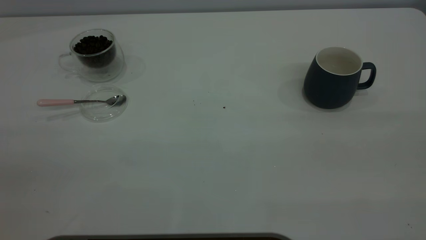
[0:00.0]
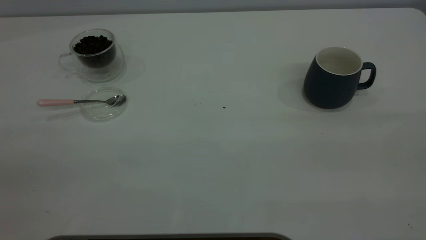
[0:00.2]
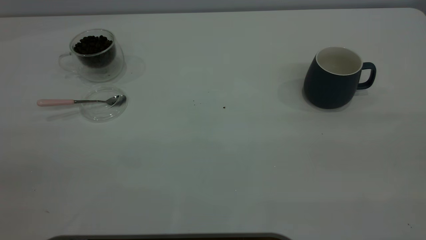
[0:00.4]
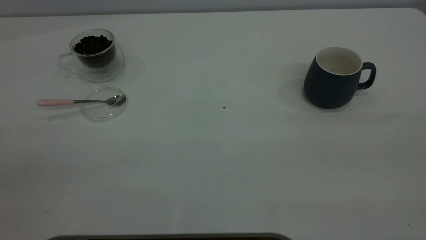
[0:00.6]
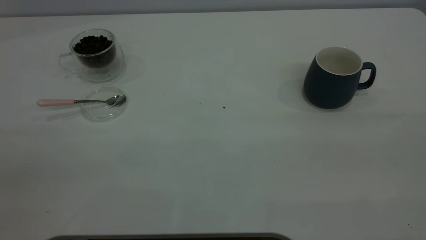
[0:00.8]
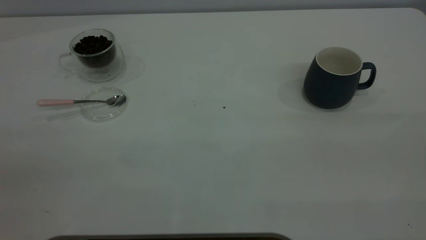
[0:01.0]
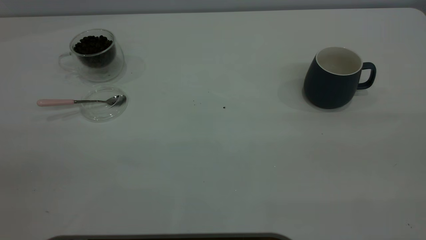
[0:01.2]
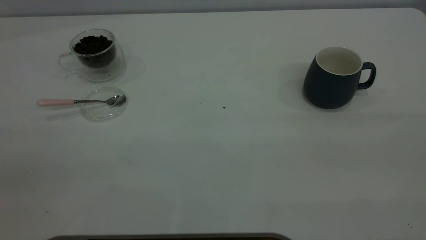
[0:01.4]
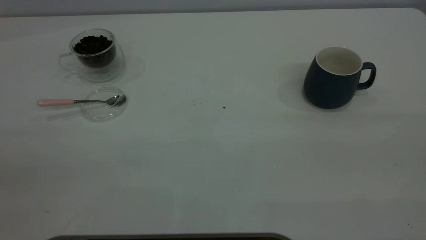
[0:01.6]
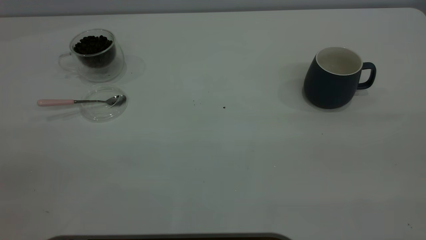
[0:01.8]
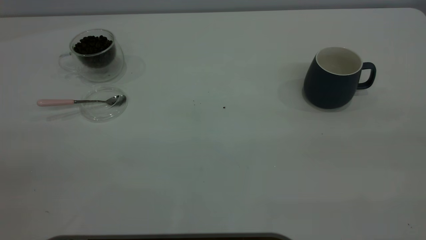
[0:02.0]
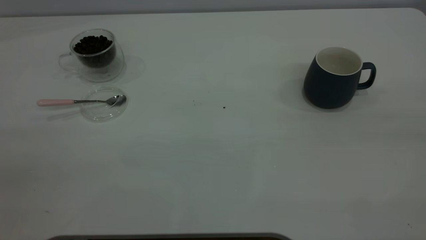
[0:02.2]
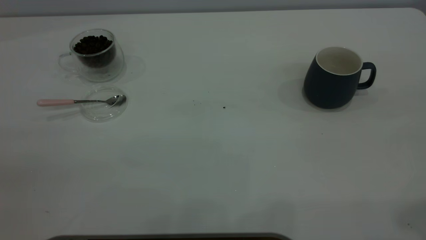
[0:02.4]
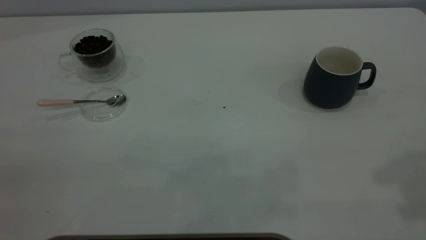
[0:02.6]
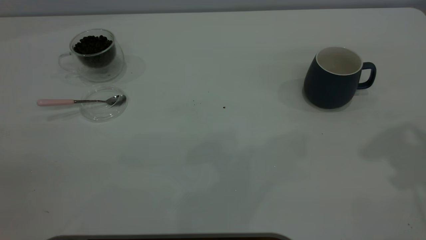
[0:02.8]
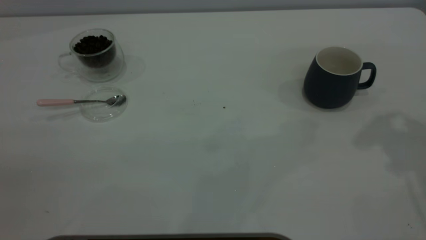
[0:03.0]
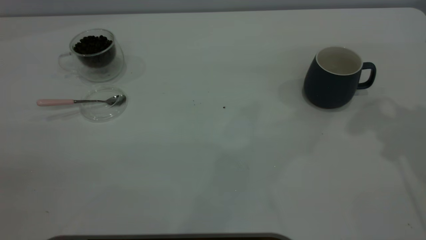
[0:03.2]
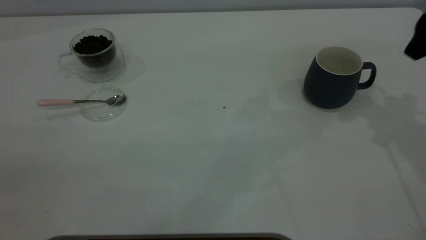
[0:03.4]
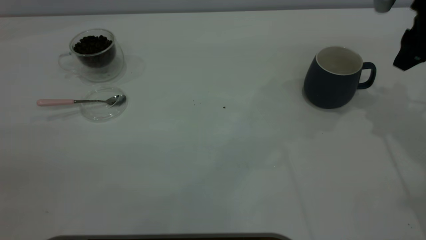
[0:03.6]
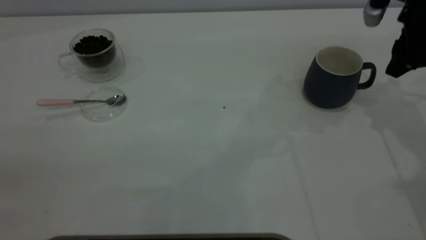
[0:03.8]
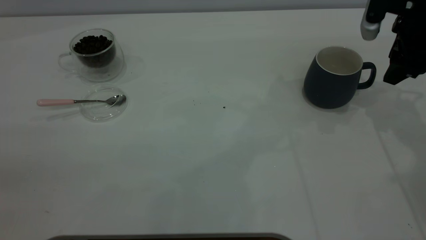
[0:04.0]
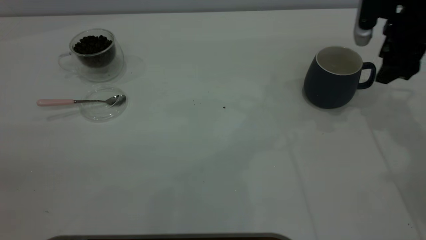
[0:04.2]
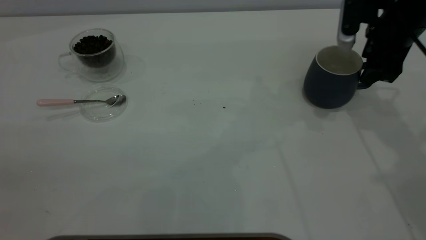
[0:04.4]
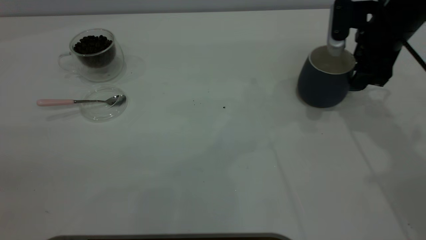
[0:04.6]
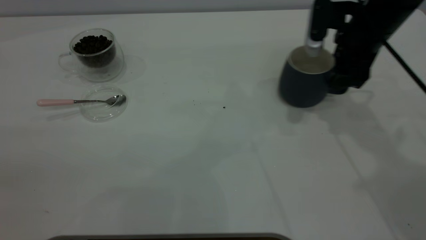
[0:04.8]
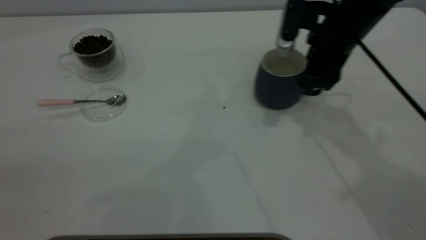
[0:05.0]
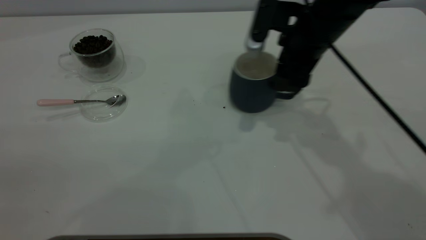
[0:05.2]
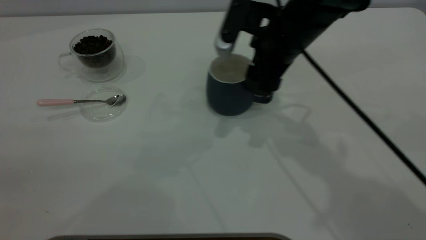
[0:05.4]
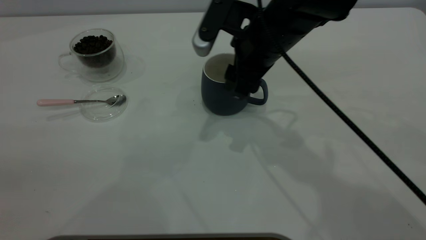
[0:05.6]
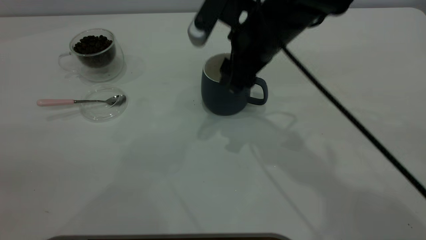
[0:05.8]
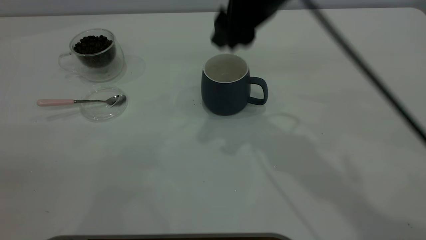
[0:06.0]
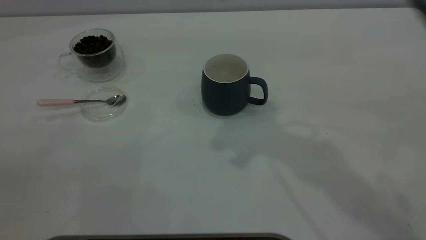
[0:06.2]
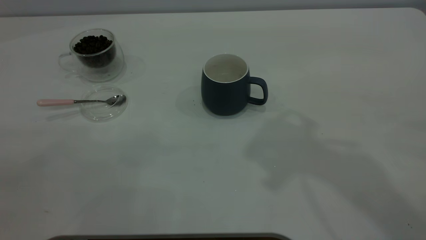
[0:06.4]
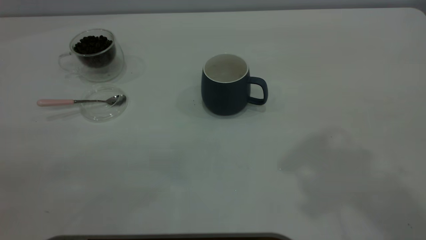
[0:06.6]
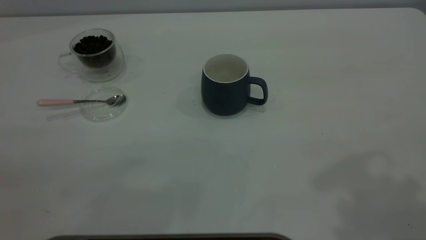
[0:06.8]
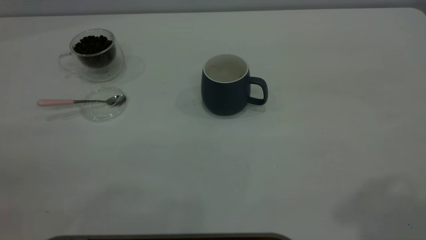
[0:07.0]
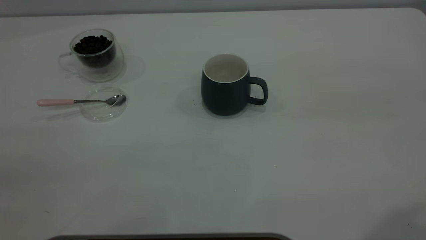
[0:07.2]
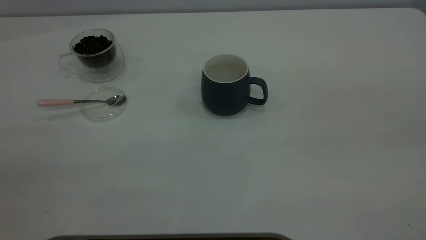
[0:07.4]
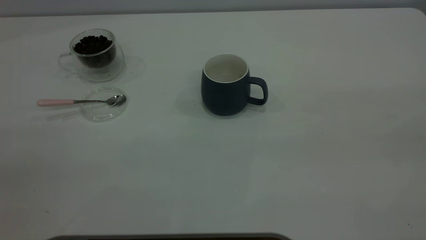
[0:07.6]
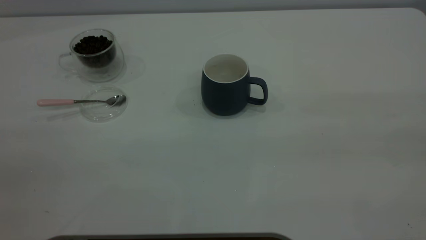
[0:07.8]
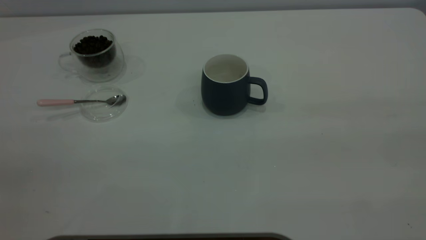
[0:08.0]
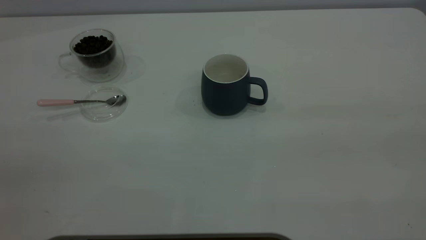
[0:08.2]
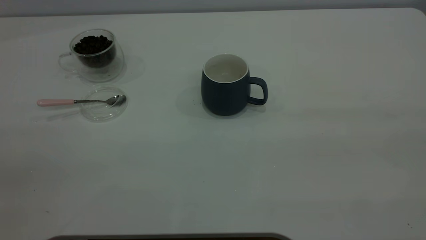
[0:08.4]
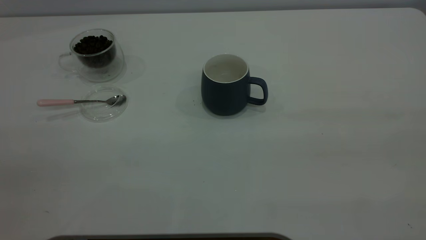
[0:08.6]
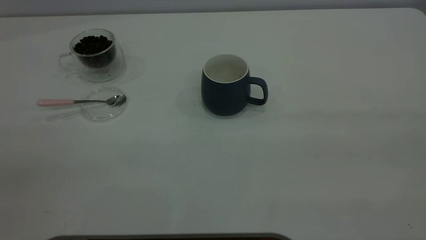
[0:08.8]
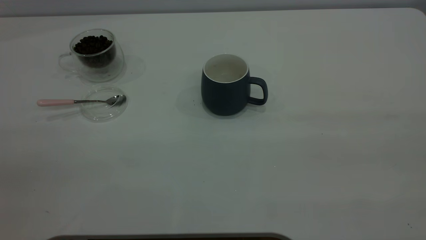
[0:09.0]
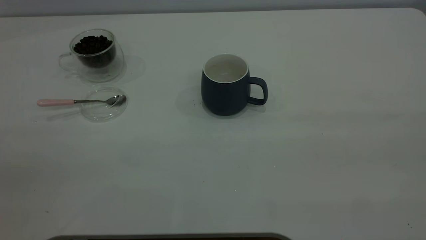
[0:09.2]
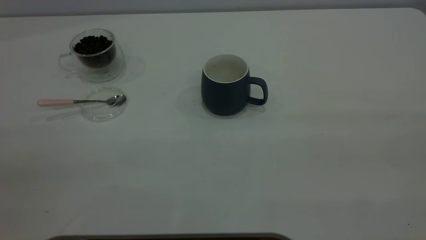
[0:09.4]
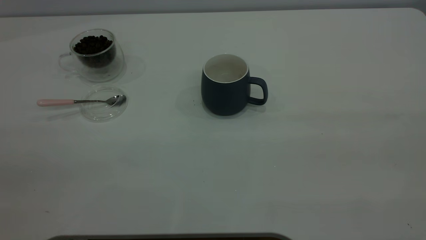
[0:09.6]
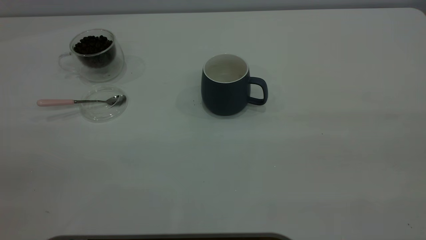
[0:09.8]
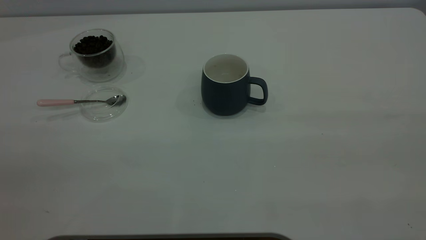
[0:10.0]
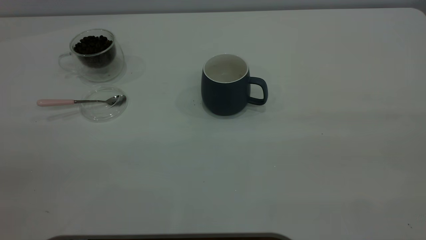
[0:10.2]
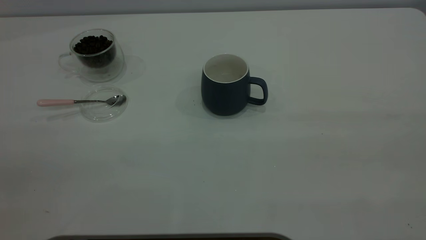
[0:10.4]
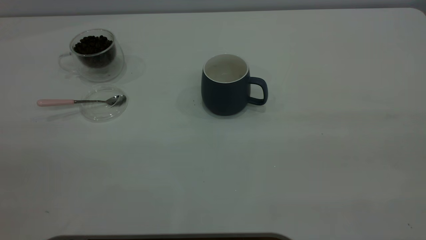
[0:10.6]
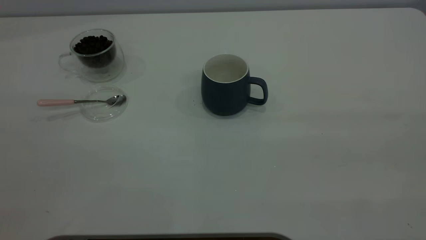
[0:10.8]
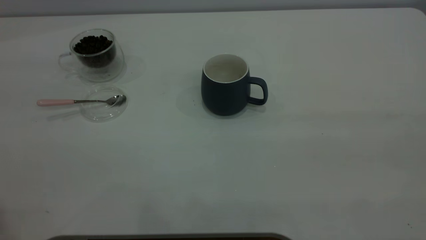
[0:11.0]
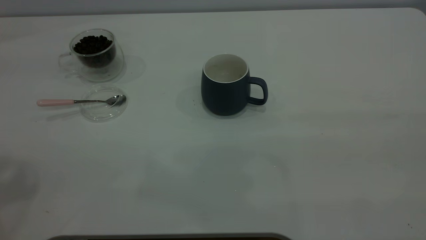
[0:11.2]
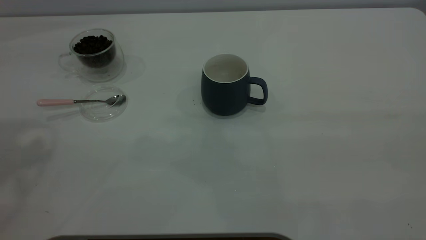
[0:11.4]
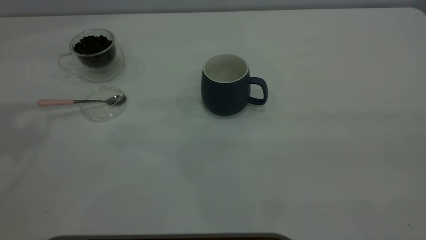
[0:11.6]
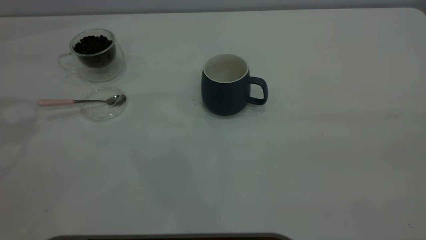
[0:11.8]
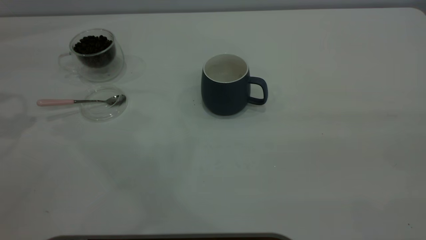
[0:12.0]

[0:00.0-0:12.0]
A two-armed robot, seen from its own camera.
Task of the whole recording: the right gripper place the grey cup in the center of the table, the left gripper take the pink spoon from the cup lid and scoop out the coffee beans from the coffee cup and put them into the grey cup, the left gripper put the spoon back into the cup lid.
Step, 0:00.0 to 0:06.0: Move the cup to the center of view.
0:00.0 to 0:01.6: Neither gripper changes place.
0:03.0 to 0:04.4: The right gripper goes some 20 cm downward and forward.
0:04.4 to 0:06.0: The right gripper shifts roughly 20 cm to the left and upward.
0:06.0 to 0:07.6: The right gripper heads backward, to the right and upward, covering approximately 40 cm.
0:09.0 to 0:10.4: Both grippers stay put.

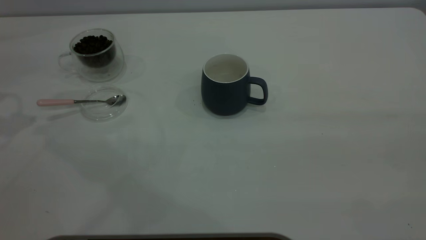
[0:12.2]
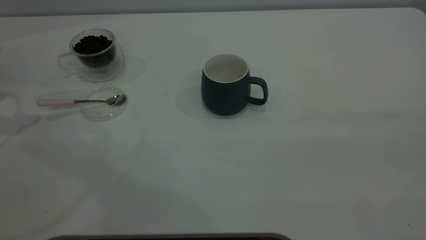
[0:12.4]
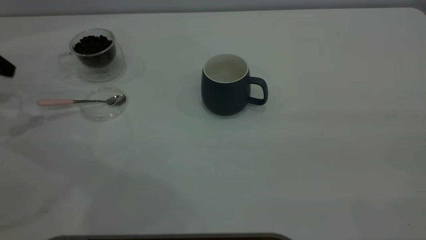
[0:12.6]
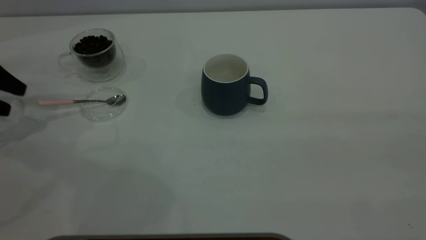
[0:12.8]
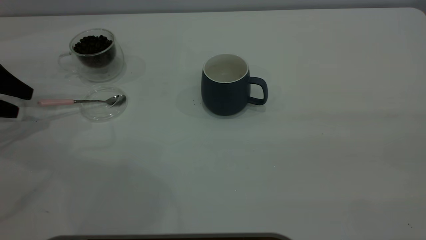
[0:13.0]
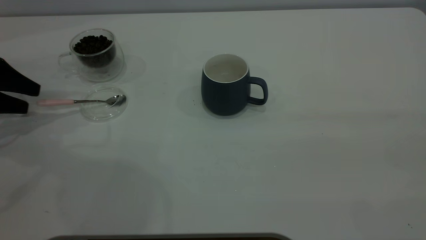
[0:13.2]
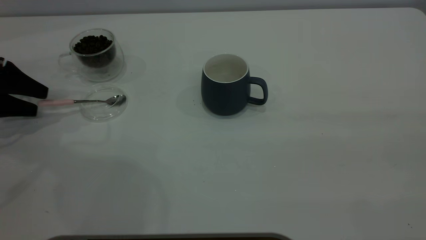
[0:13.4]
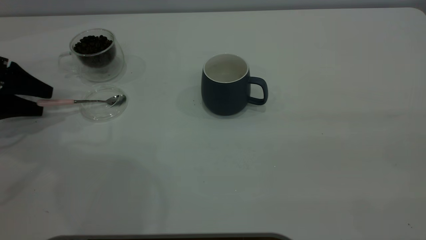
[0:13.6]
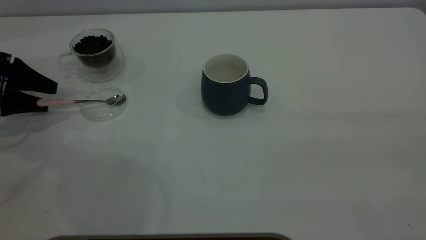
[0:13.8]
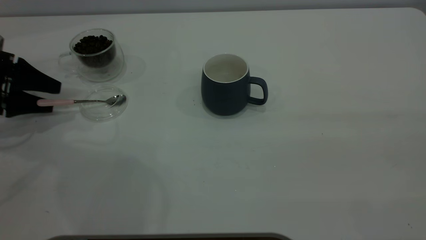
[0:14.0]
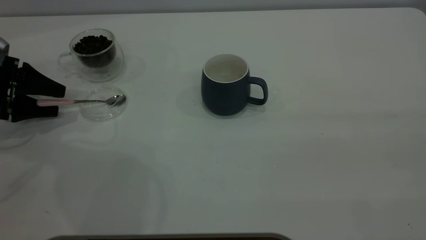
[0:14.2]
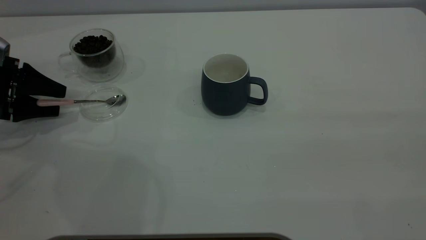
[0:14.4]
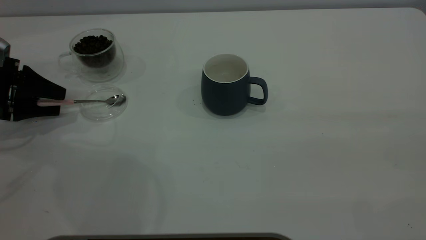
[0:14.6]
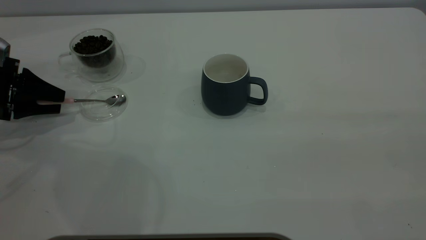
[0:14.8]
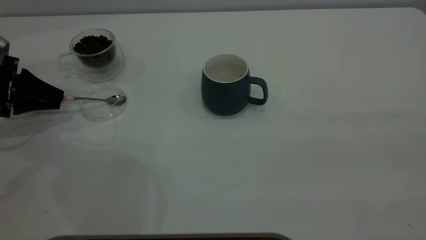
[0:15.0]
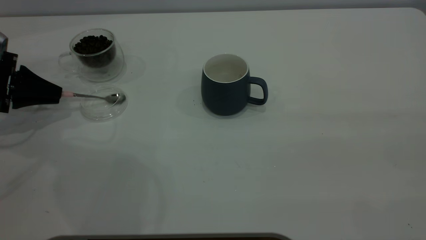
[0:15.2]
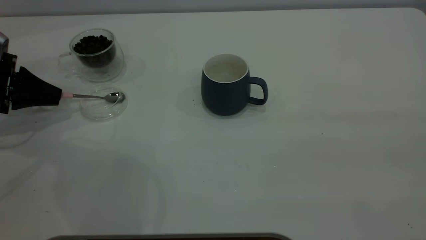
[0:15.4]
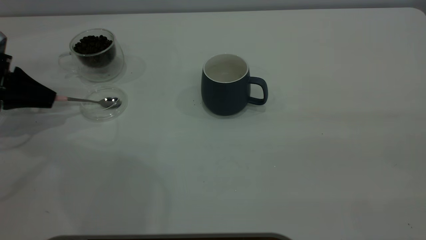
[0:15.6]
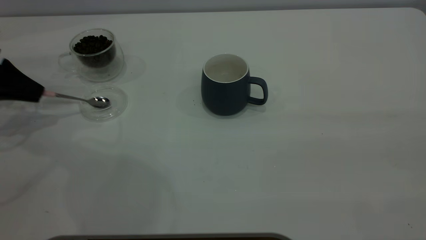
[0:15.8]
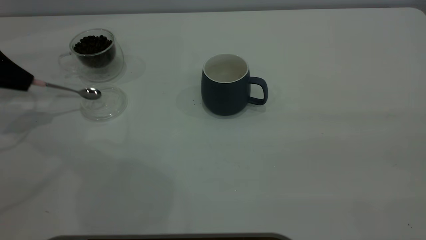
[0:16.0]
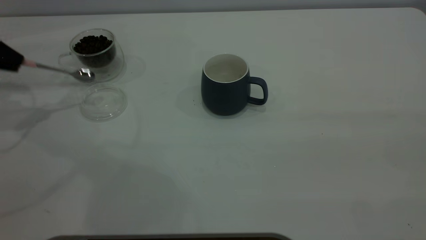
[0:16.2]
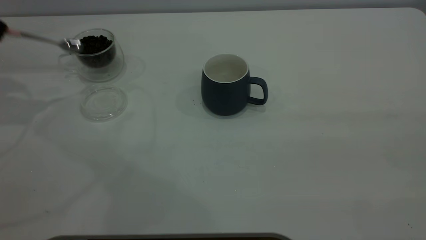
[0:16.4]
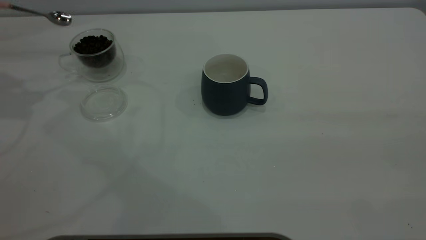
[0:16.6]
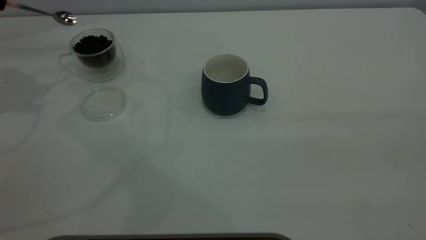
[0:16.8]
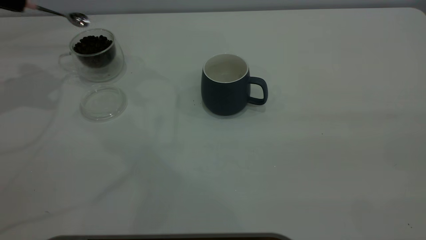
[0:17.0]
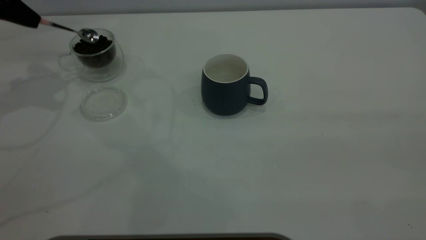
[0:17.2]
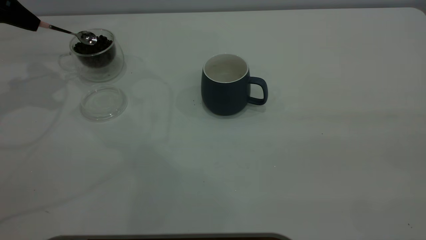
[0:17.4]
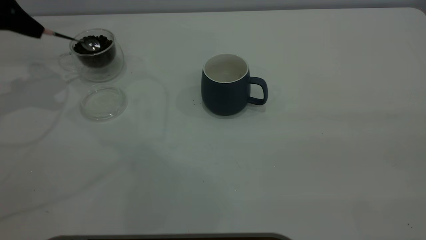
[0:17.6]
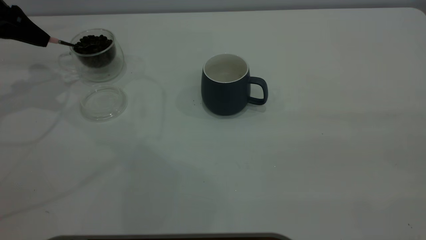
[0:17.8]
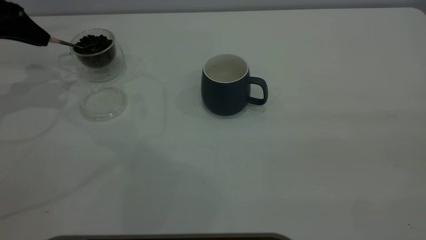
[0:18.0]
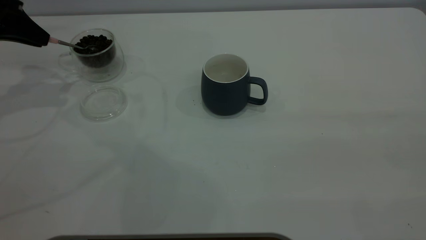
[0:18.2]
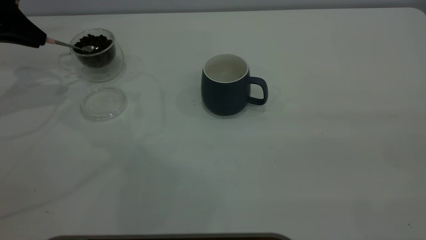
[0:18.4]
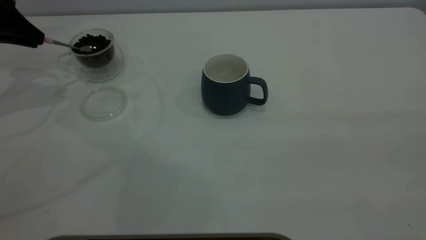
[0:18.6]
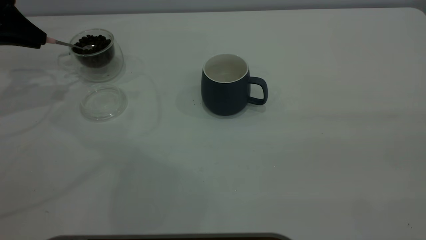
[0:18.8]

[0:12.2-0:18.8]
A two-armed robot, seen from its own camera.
Task of the whole recording: the right gripper place the grey cup in the center of the table, the left gripper take the pink spoon from the cup lid and scoop out the coffee beans from the coffee cup and put them into the grey cup, the left gripper put the spoon back into the cup lid.
Step, 0:12.2 to 0:16.0: Pick up the spoon.
0:12.2 to 0:13.8: The left gripper heads downward, covering approximately 15 cm.
0:13.8 to 0:15.4: The left gripper closes up.
0:15.4 to 0:17.2: The left gripper heads upward, covering approximately 15 cm.
